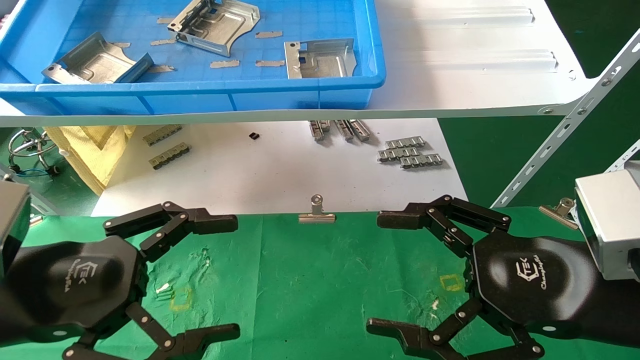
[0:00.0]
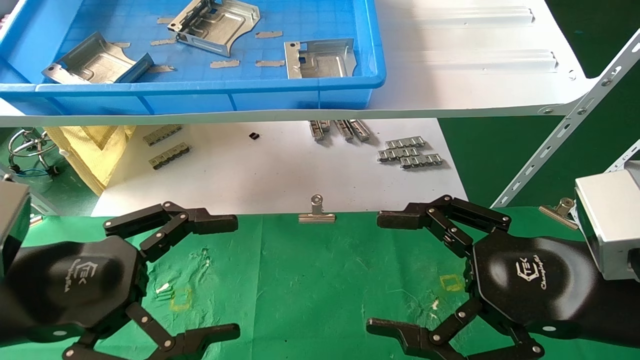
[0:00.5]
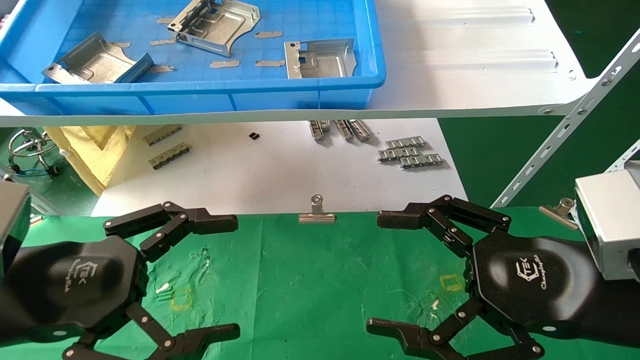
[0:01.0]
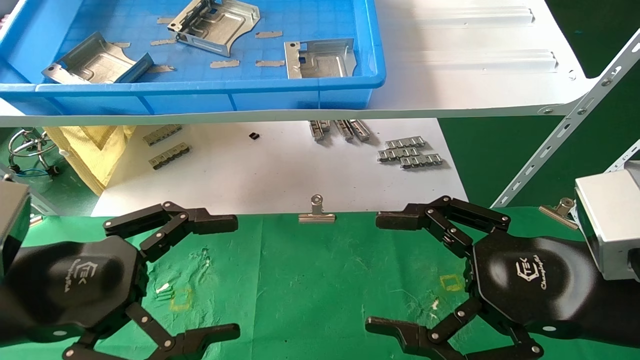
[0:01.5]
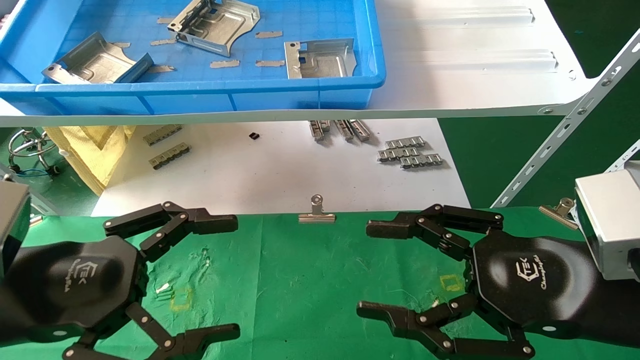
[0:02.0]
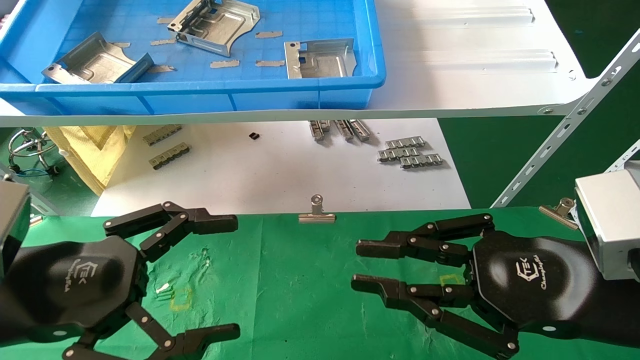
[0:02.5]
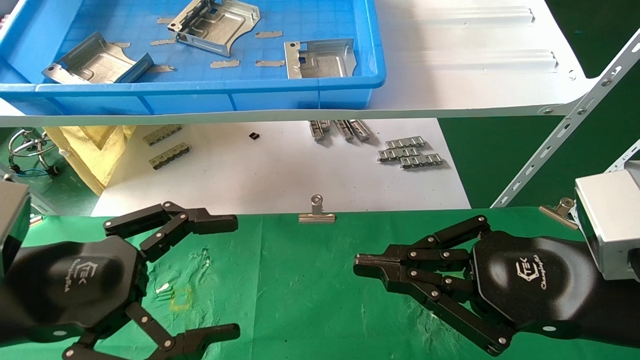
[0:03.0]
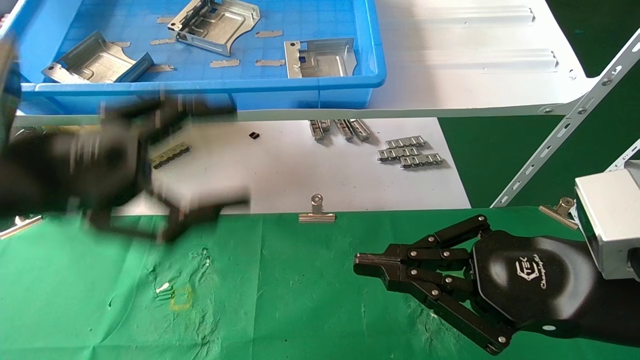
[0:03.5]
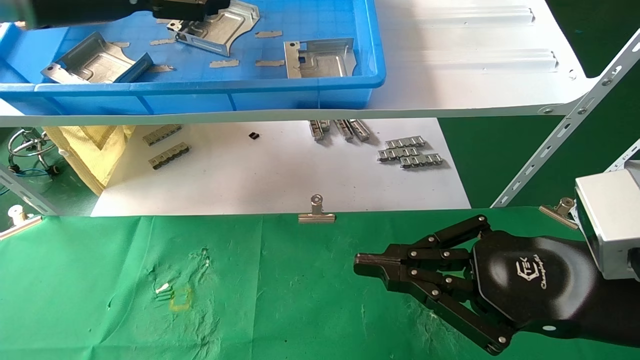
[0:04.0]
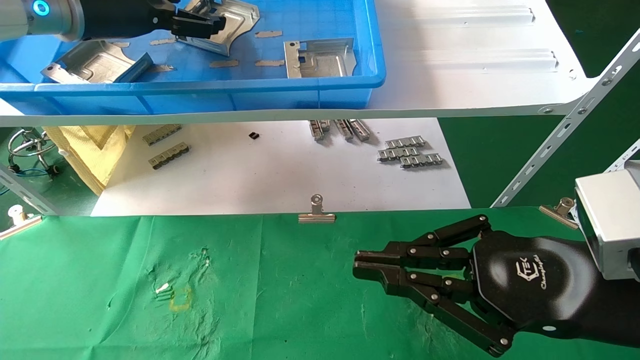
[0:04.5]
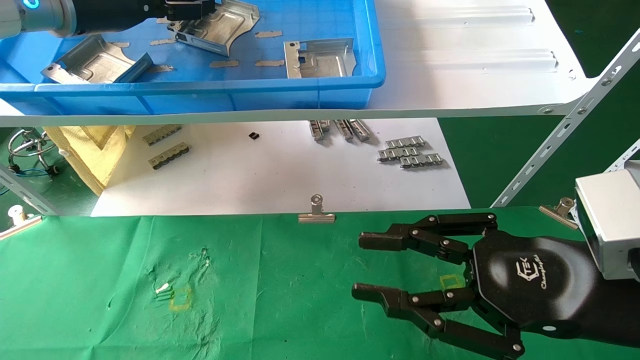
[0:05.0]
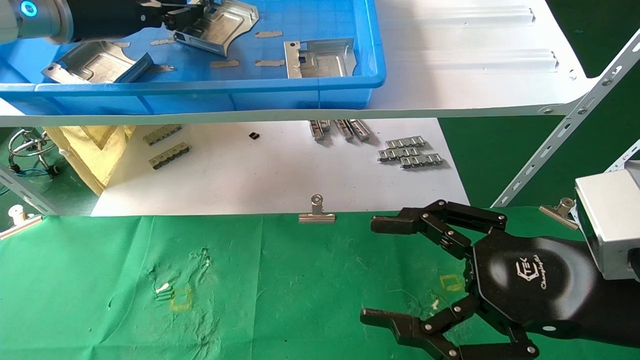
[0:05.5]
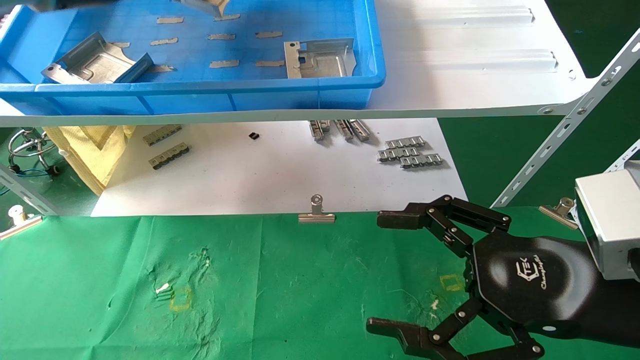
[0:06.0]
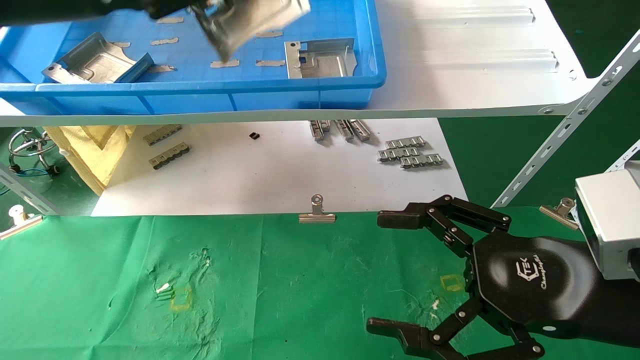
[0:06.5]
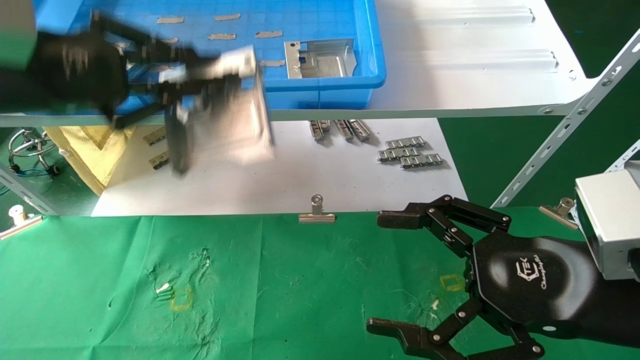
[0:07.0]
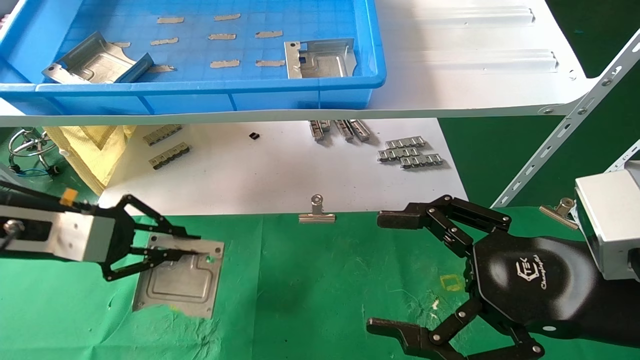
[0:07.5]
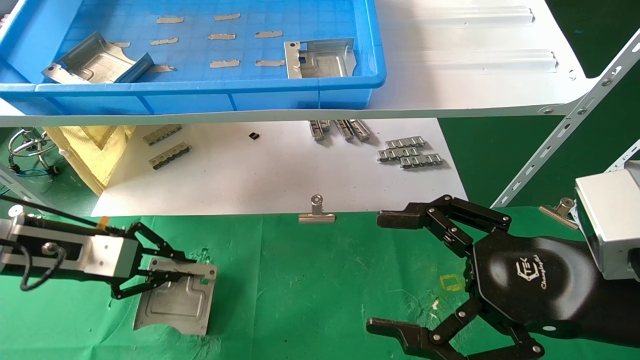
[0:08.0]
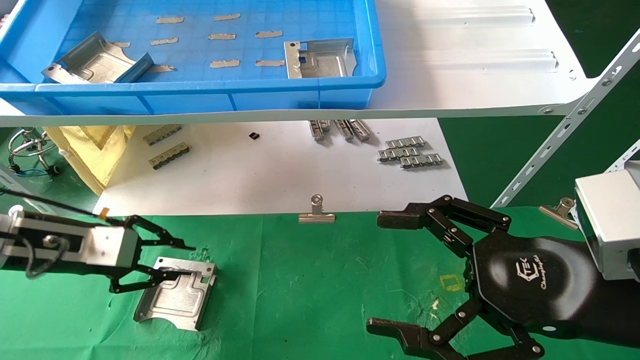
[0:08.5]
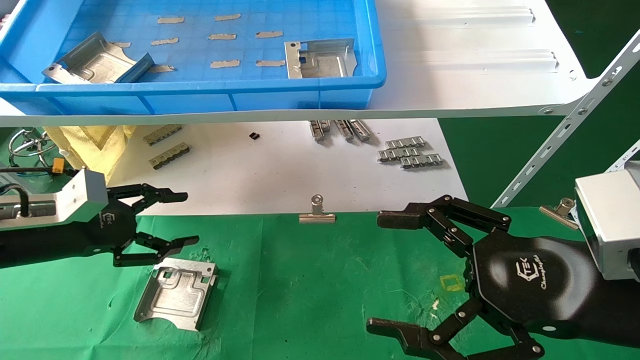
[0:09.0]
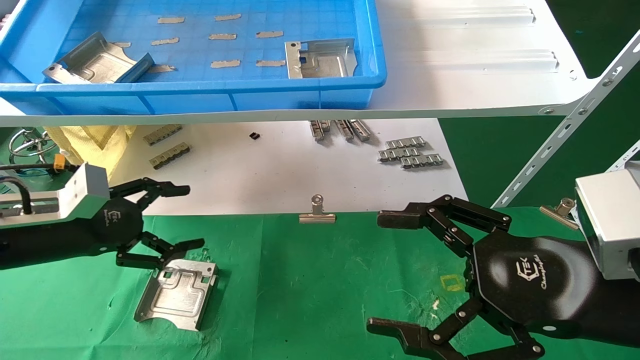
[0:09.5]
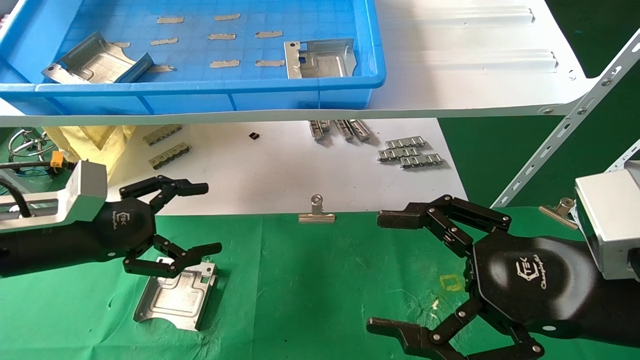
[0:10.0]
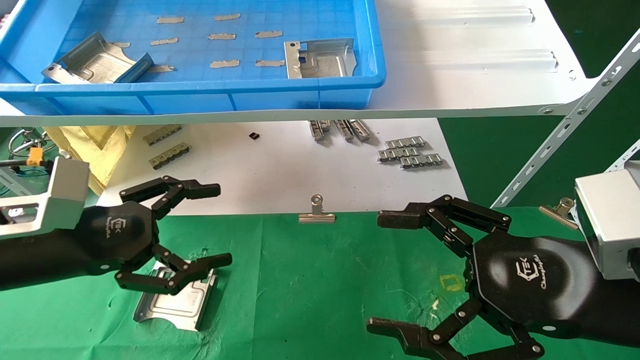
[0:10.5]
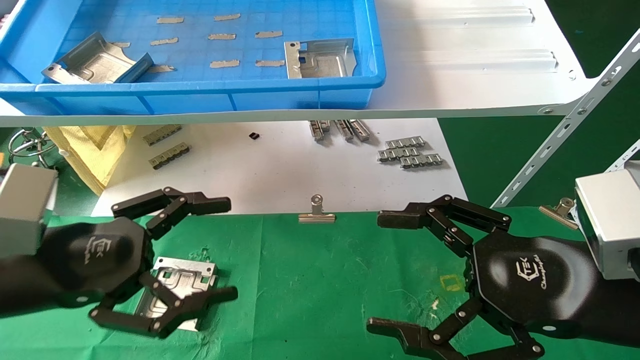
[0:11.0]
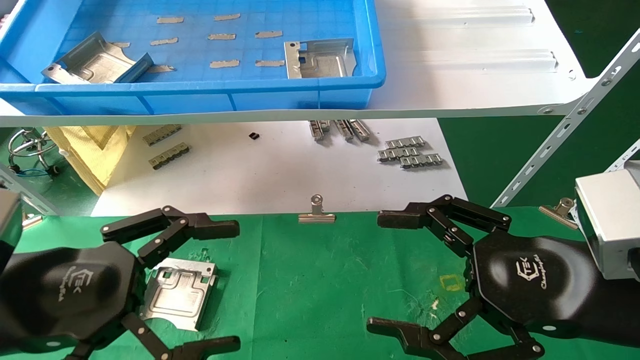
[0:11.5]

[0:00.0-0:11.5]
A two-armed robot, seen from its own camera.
Task of the whole recording: use the mechanical arm to pick up the parts and place them on the table.
Step, 0:03.5 to 0:05.5: Pick up the hard drive bracket from the feeding area.
Step, 0:06.0 to 0:08.5: Place the hard drive bracket into the box.
0:00.0 to 0:02.0: Neither gripper changes place.
0:02.0 to 0:04.0: The right gripper closes. The left gripper shifts some 30 cm upward and forward.
0:04.0 to 0:06.0: The right gripper opens. The left gripper closes up.
0:06.0 to 0:07.5: The left gripper shifts approximately 25 cm downward.
0:07.5 to 0:09.5: The left gripper changes place by some 5 cm, and opens up.
0:09.5 to 0:11.5: The left gripper shifts roughly 15 cm backward and to the right.
